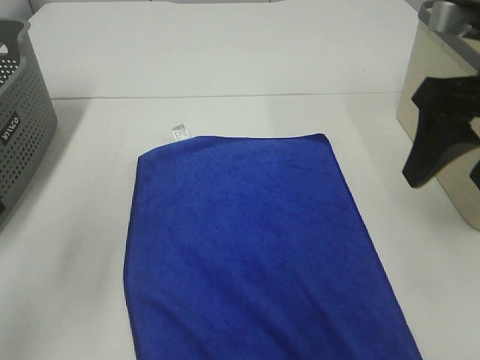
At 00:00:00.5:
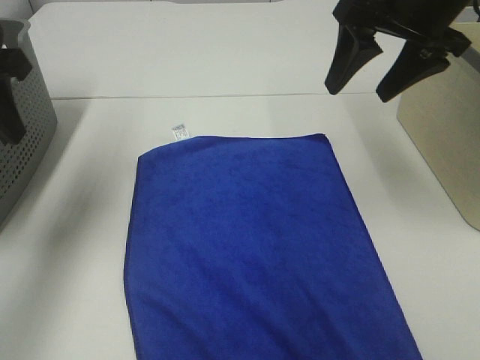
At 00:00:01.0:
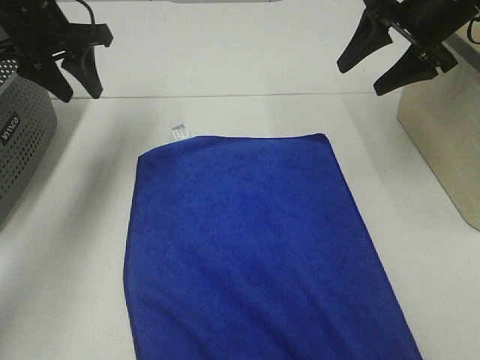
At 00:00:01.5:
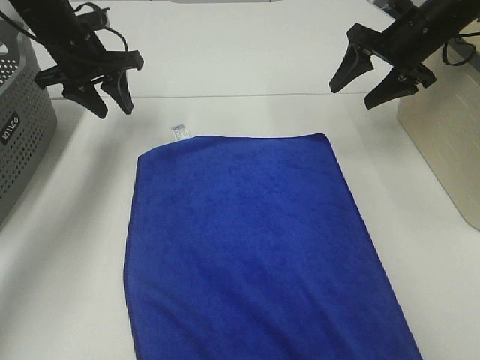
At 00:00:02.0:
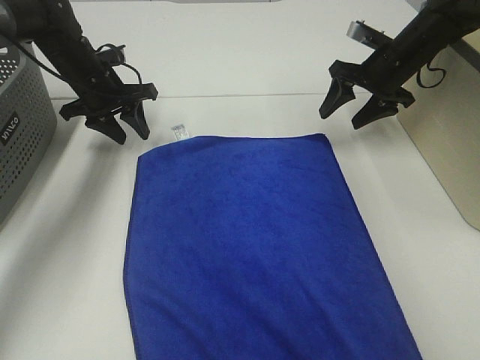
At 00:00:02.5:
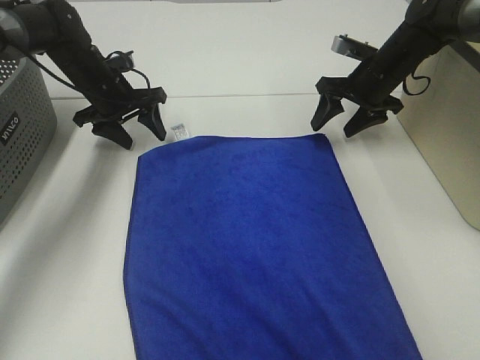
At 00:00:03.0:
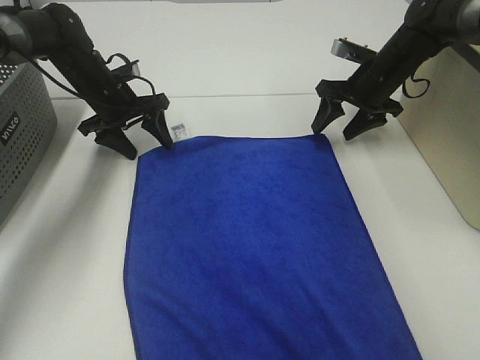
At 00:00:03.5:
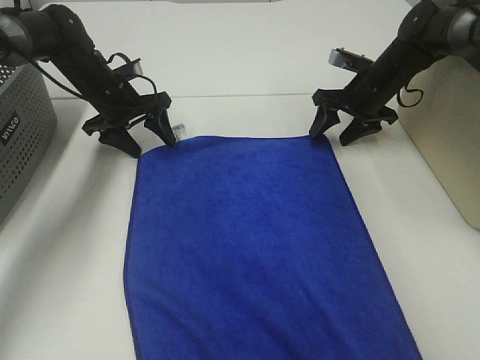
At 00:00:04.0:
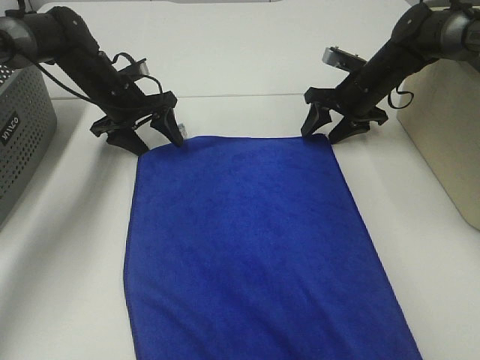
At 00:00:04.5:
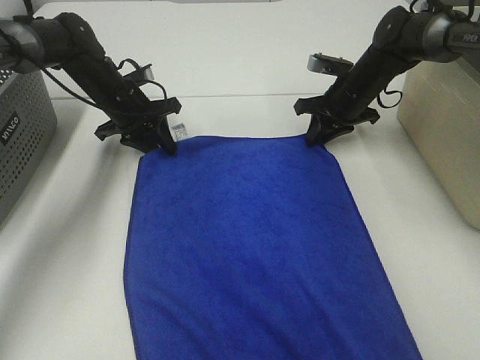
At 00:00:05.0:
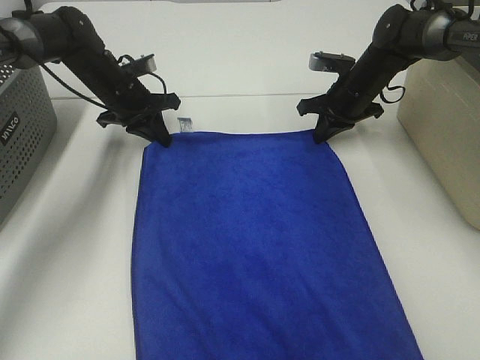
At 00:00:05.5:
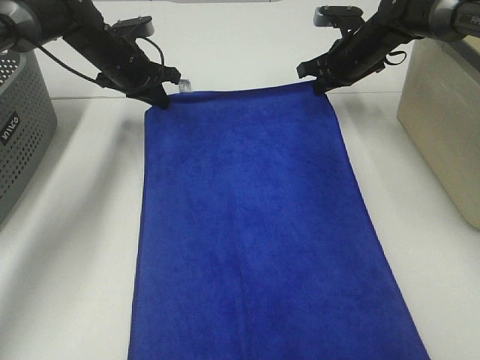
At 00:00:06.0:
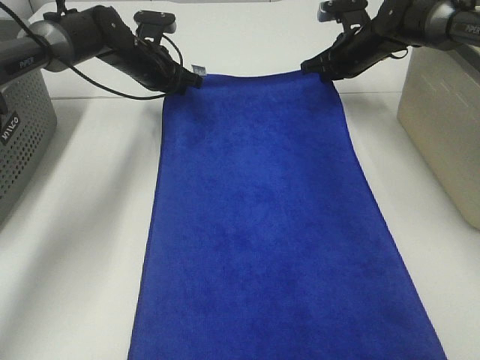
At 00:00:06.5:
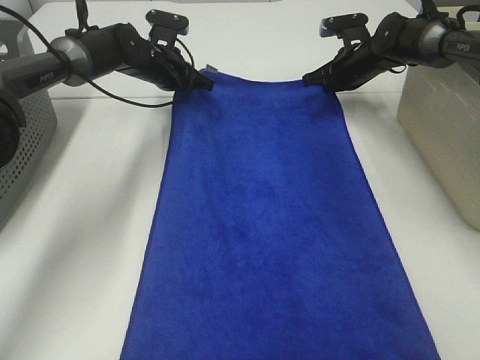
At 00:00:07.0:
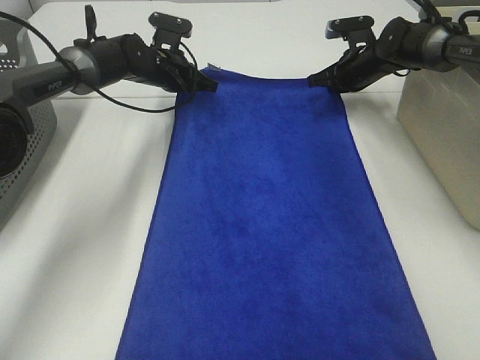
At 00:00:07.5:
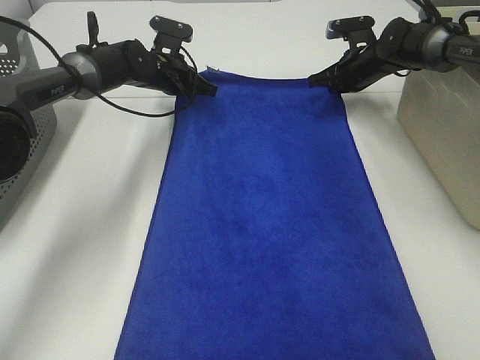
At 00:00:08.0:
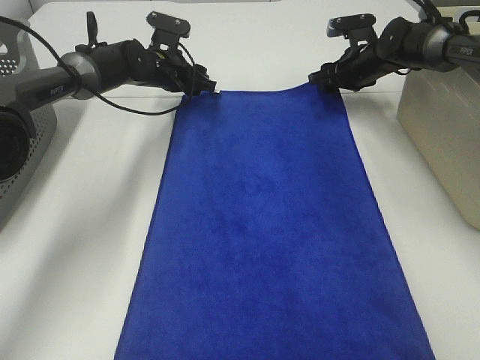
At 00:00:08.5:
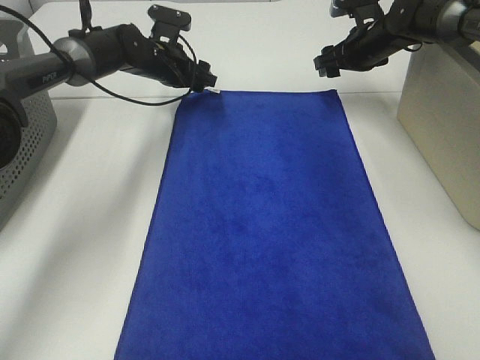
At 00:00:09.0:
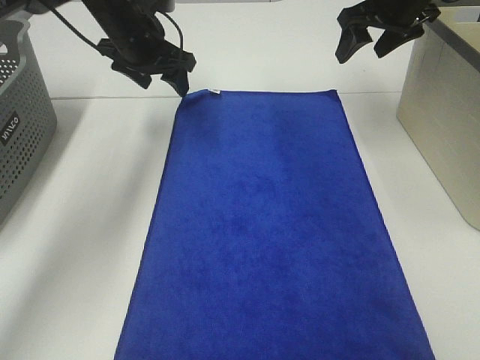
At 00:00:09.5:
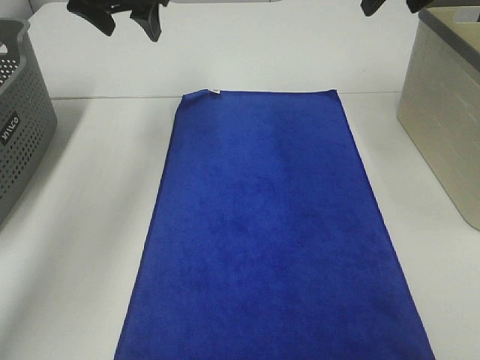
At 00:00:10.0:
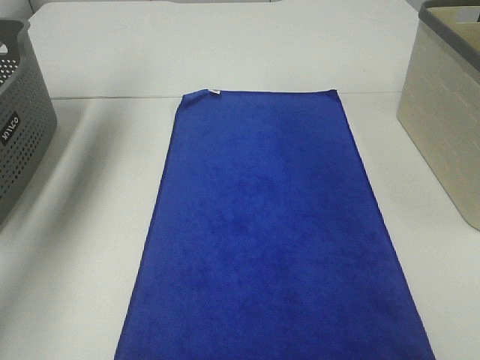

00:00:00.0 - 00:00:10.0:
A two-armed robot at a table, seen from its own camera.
Task of the whole recording: Remove the towel and place it.
00:00:00.0 - 00:00:02.0: Both grippers travel together forward and downward, roughly 35 cm.
00:00:02.0 - 00:00:04.0: The right gripper ends up some 5 cm from where it was.
00:00:04.0 - 00:00:06.0: The right gripper shifts by approximately 5 cm, and closes its fingers; the left gripper is displaced forward by approximately 5 cm, and closes its fingers.
00:00:06.0 - 00:00:08.0: The right gripper opens up. The left gripper opens up.
00:00:08.0 - 00:00:10.0: The left gripper goes approximately 35 cm upward, to the left and backward. Meanwhile the right gripper shifts approximately 35 cm upward and backward.

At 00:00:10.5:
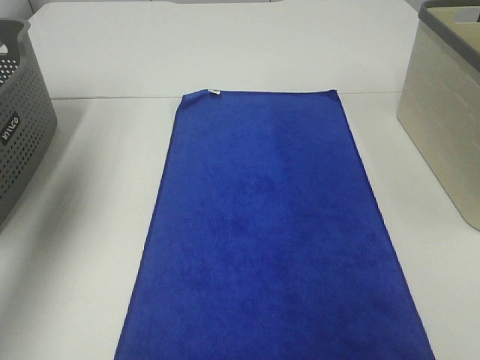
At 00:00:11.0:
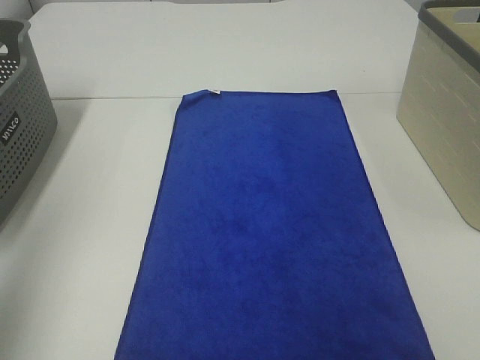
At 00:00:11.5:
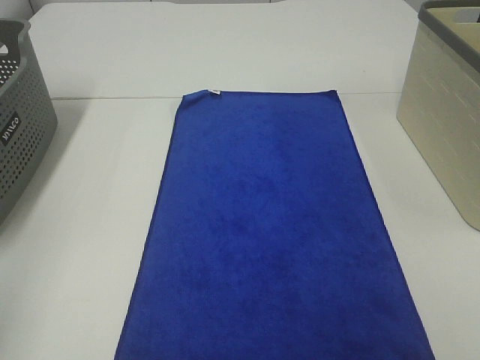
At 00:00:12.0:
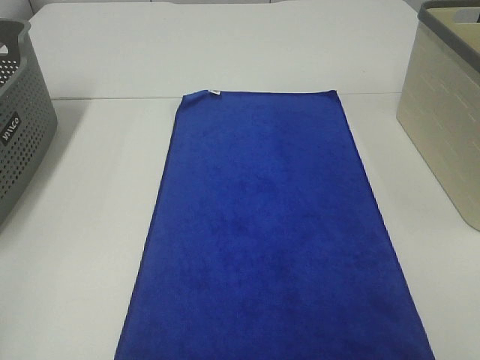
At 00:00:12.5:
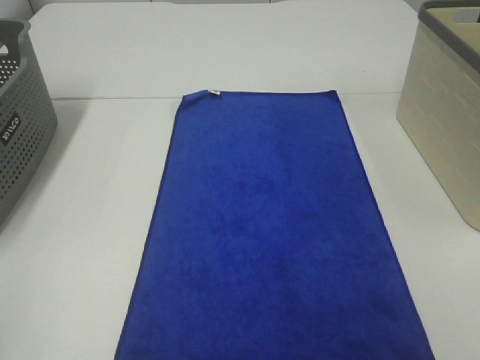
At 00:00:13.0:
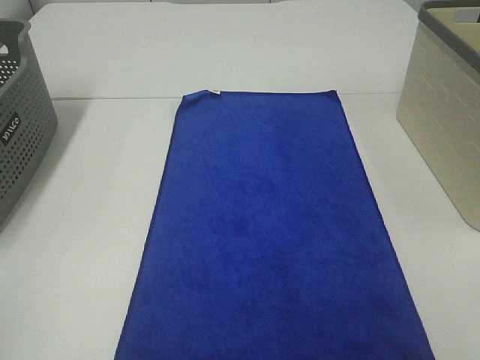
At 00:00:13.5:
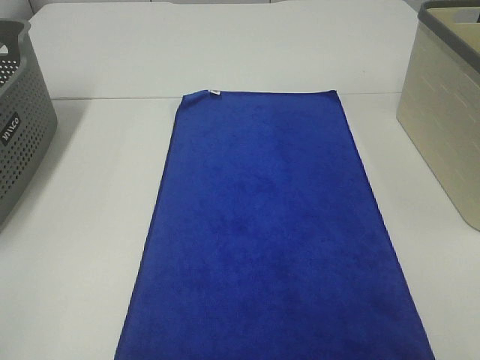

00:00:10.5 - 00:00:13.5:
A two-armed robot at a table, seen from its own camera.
Task of the whole recording: Remove the towel and place it.
00:00:10.5 - 00:00:12.0: The left gripper travels backward by about 30 cm.

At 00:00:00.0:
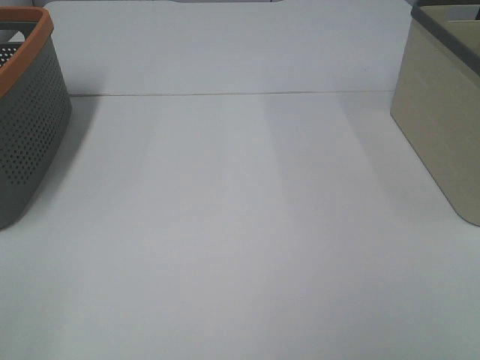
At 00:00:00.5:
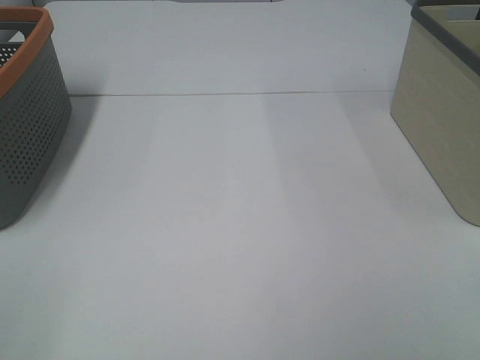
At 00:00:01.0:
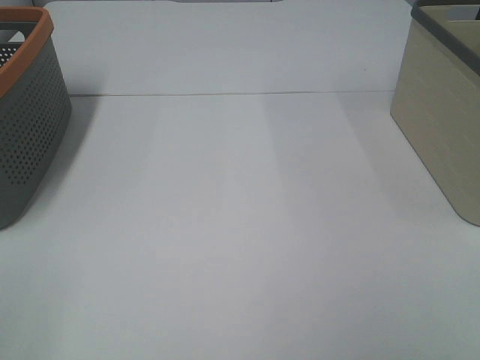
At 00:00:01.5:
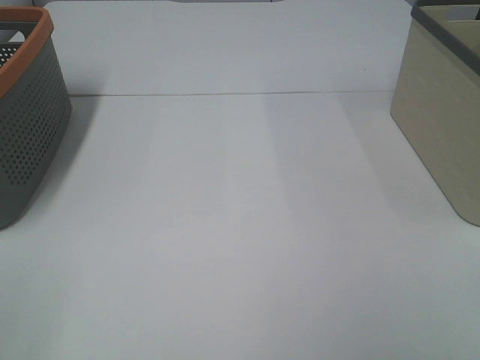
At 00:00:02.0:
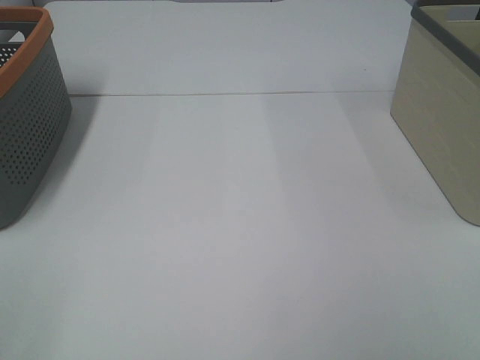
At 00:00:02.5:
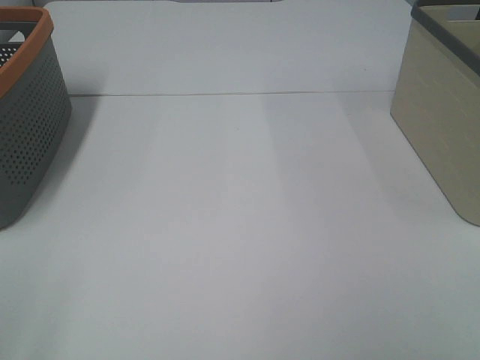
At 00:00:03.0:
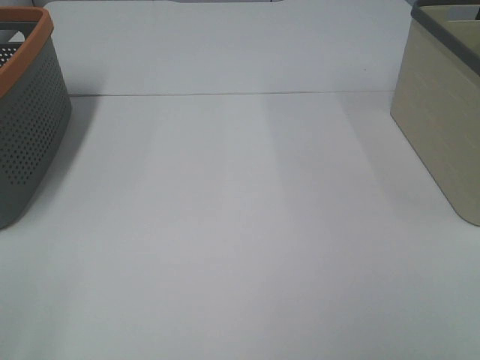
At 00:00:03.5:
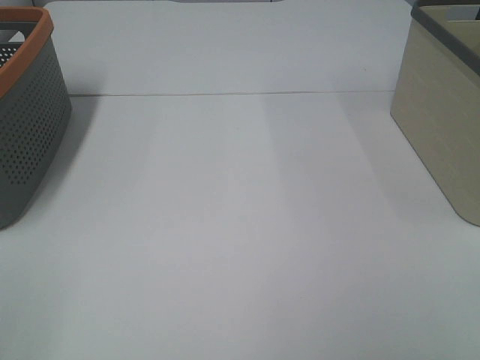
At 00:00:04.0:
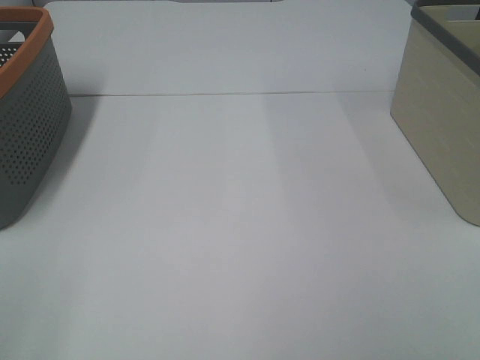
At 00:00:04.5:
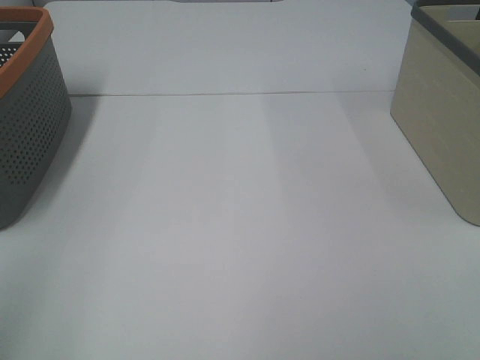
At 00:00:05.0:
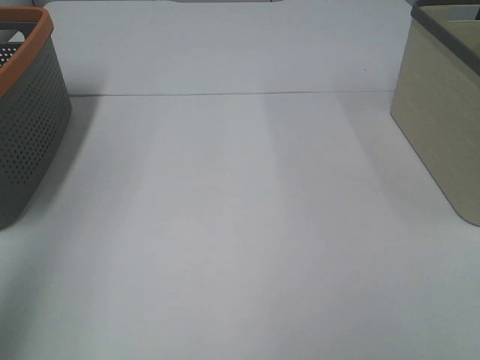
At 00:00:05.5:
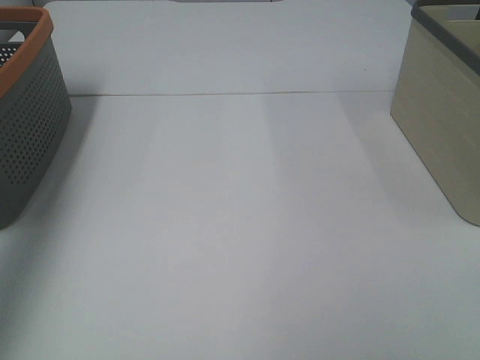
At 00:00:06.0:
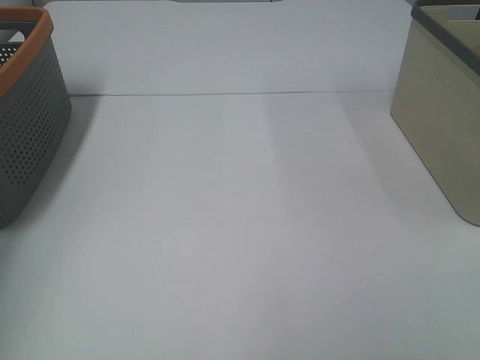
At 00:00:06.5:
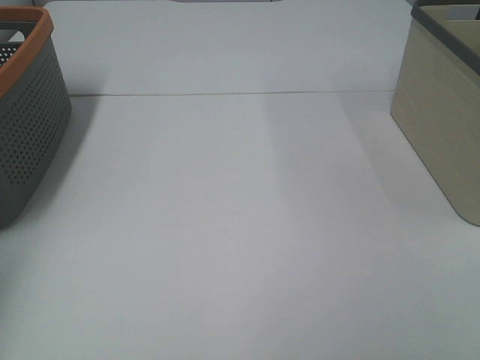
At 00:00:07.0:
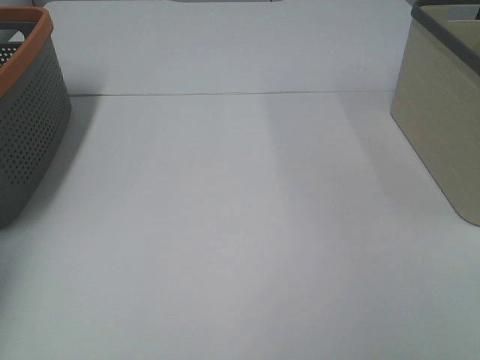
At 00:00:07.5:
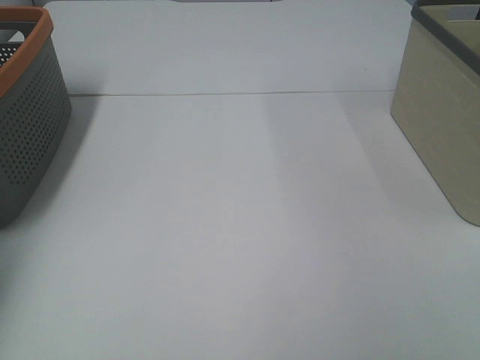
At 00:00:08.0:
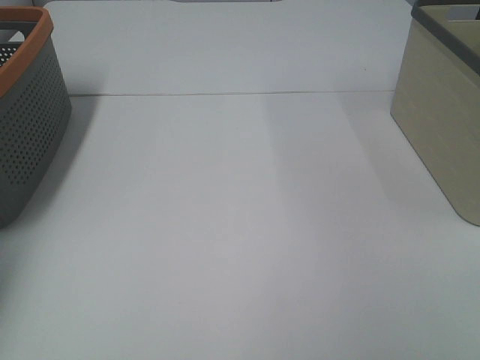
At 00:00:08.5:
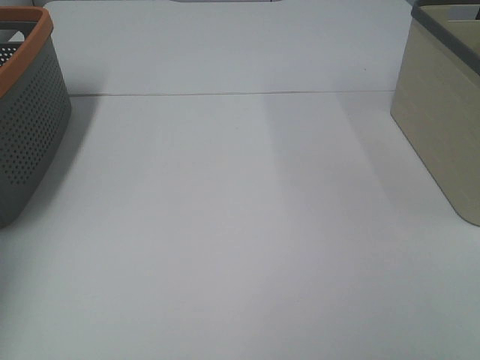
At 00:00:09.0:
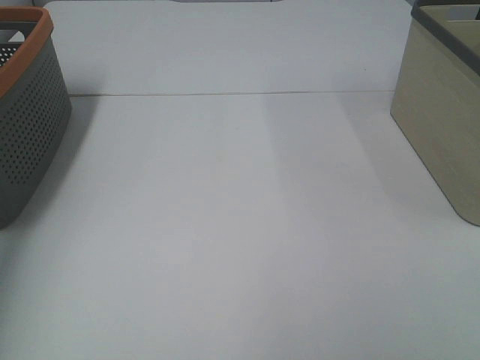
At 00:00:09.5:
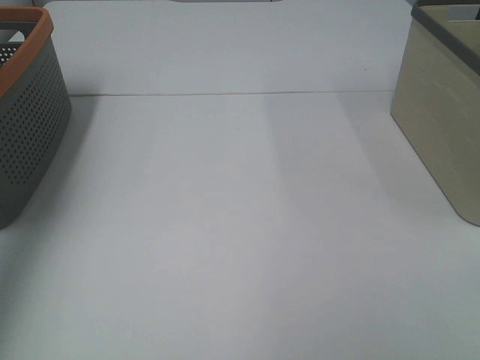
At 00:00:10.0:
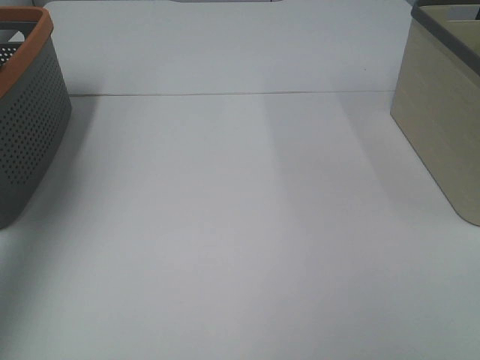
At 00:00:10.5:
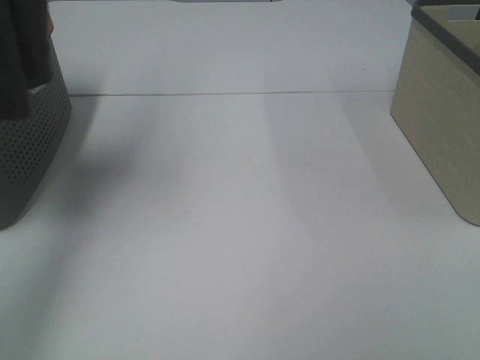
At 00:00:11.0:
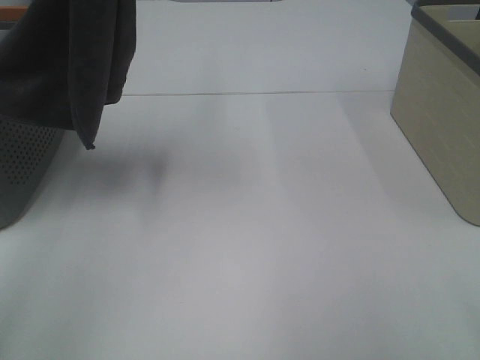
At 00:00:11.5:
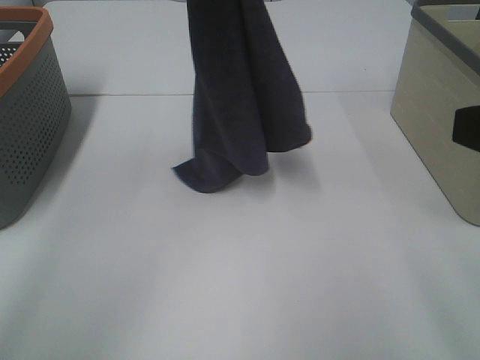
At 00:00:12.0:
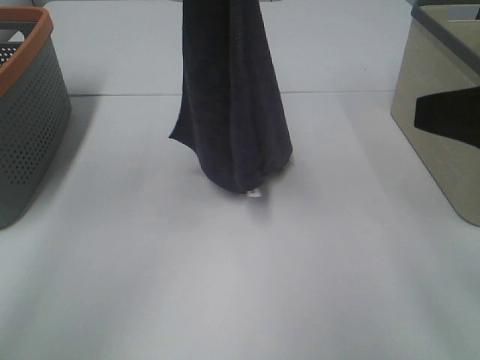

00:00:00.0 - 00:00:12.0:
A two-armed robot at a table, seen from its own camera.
Task of the whole recording: Remove the towel and place it.
00:00:00.0 - 00:00:02.0: Both grippers stay put.
00:00:04.0 - 00:00:06.0: The left gripper moves forward, some 35 cm.
00:00:08.0 - 00:00:10.0: The left gripper shifts about 40 cm upward and backward.
00:00:10.0 - 00:00:12.0: The right gripper moves forward, about 15 cm. Meanwhile the left gripper travels to the right and forward by some 30 cm.
